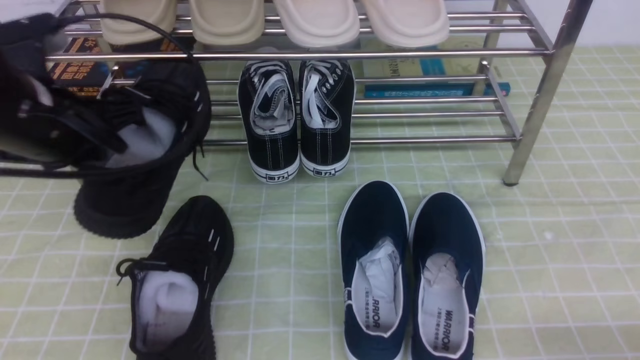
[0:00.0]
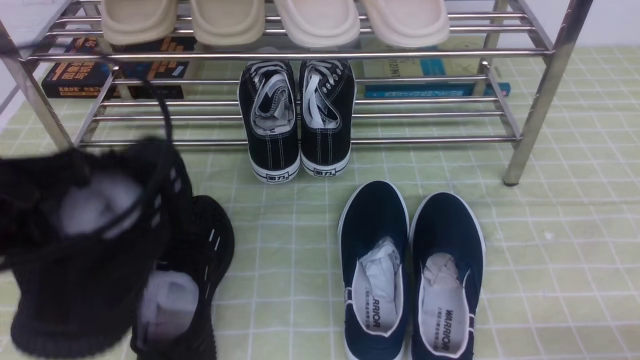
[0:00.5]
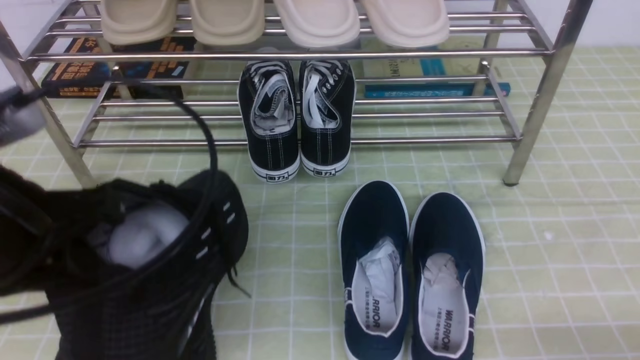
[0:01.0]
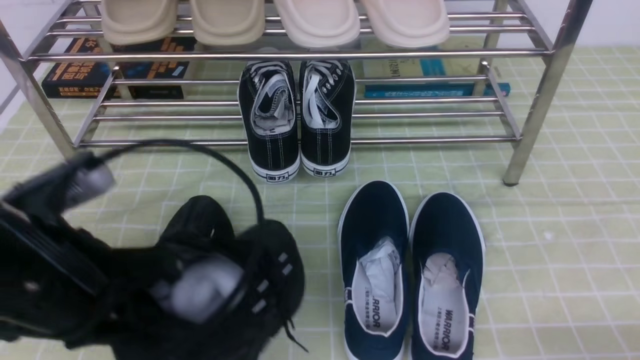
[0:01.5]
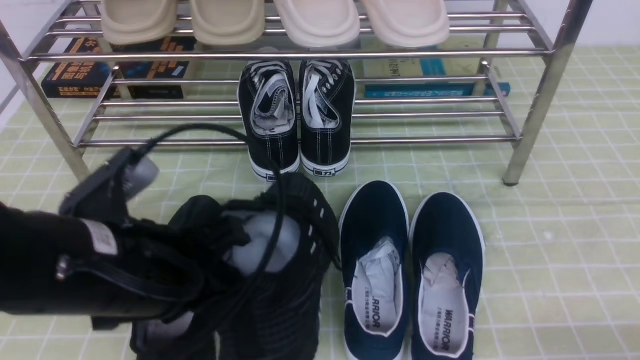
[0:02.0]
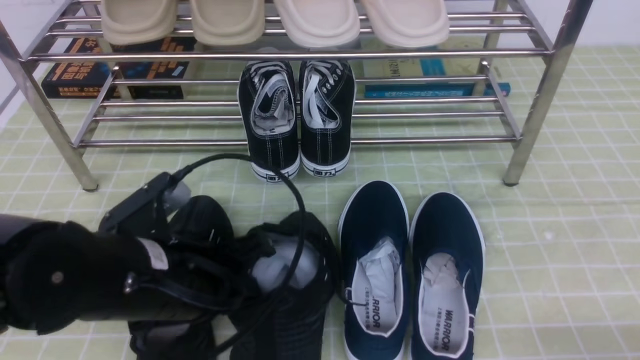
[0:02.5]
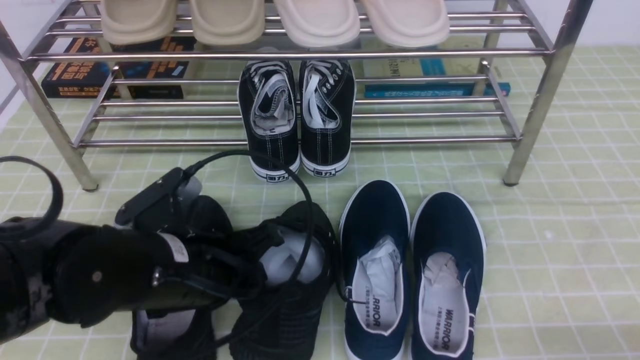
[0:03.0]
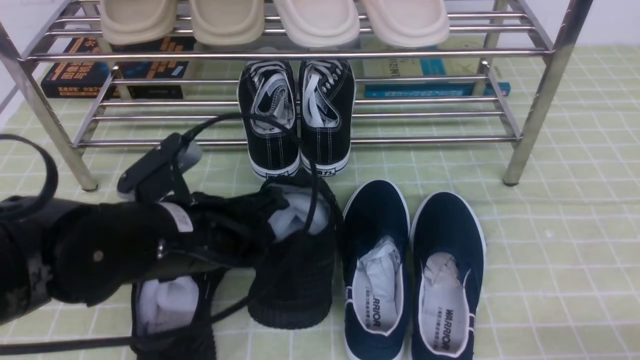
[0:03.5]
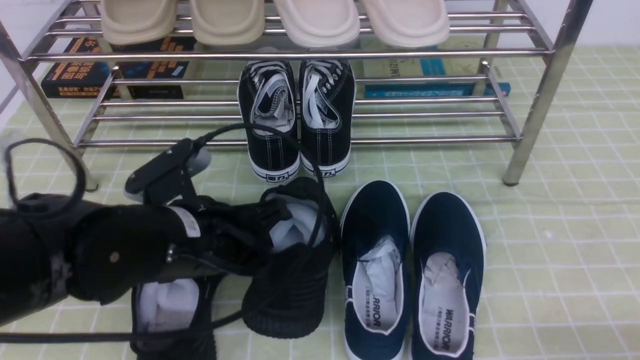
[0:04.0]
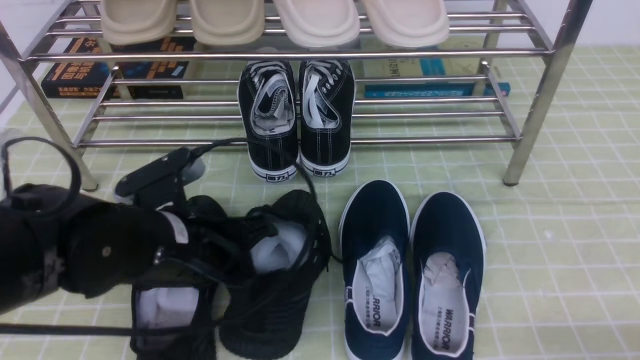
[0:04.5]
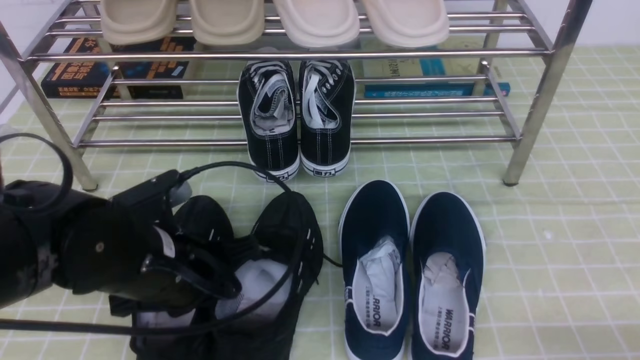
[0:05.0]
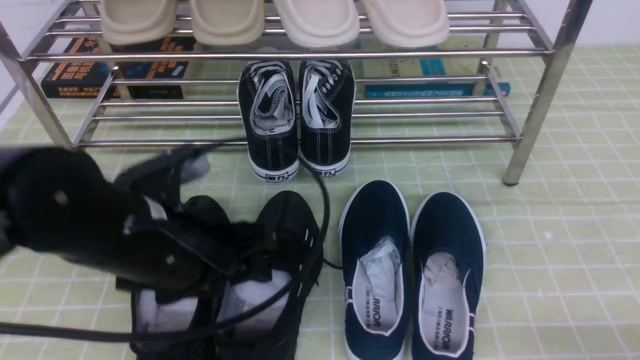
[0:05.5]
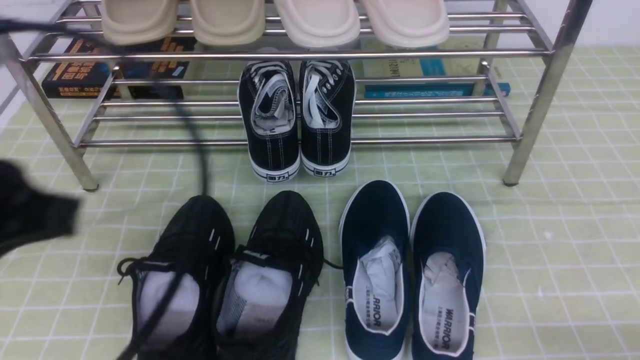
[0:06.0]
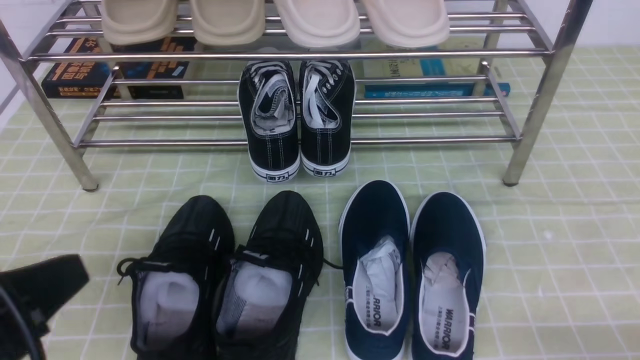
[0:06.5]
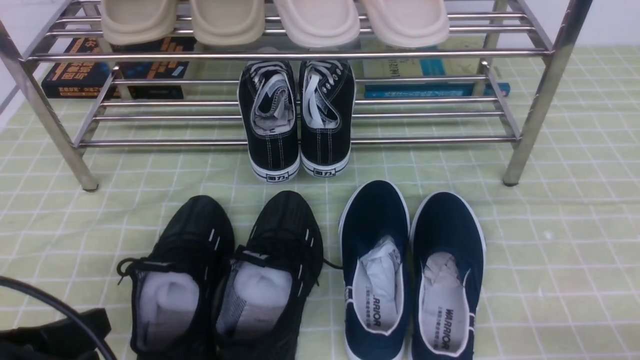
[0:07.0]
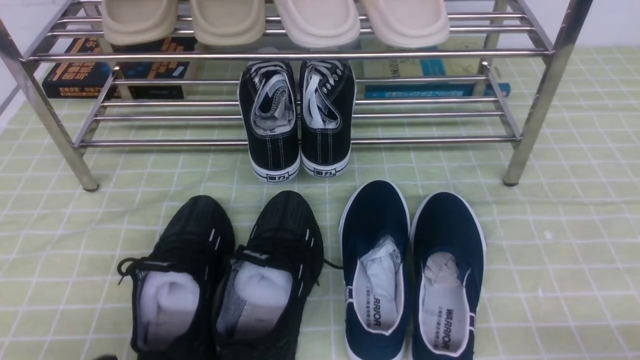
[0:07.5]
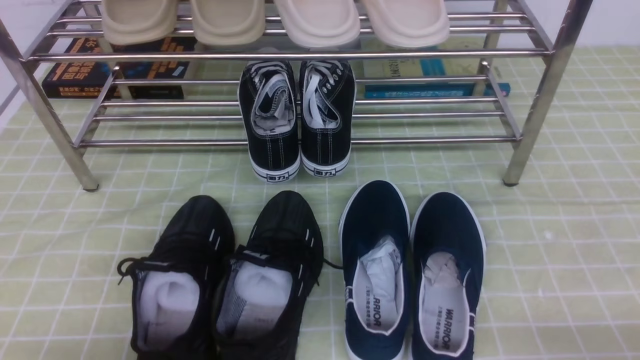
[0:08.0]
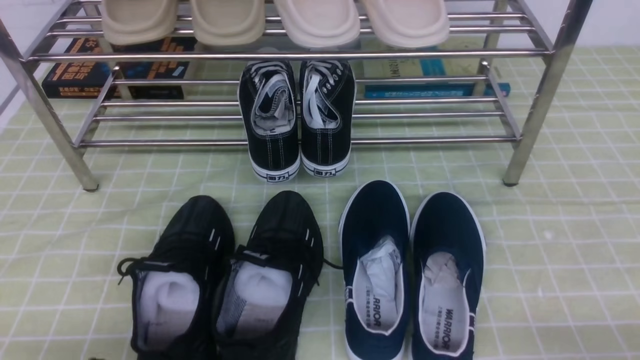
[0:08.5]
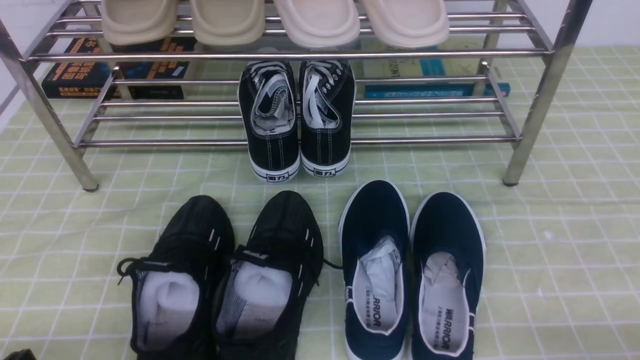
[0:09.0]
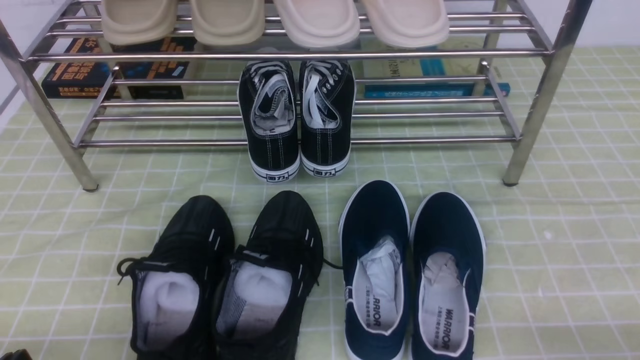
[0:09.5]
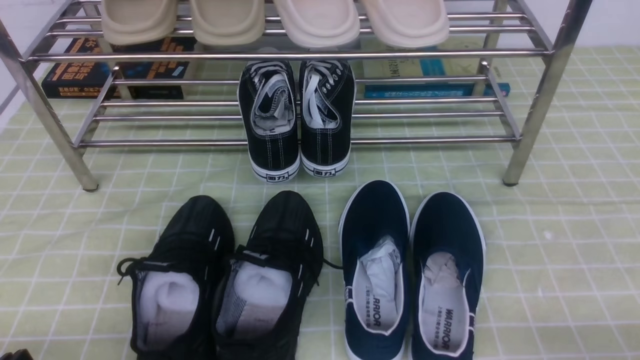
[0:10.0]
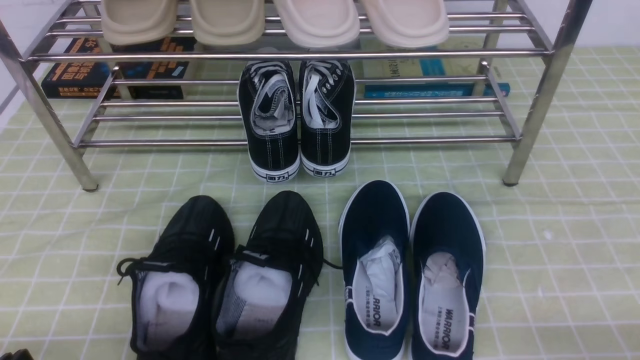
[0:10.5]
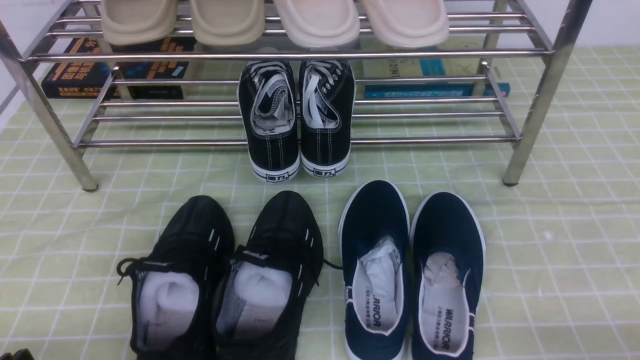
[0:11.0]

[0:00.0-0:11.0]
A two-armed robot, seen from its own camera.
Step, 0:00.0 to 0:05.0: Use your left arm to remove the clamped shoe from the shoe rack and put it down.
0:00.0 to 0:02.0: The left gripper heads backward, to the right and downward, covering some 15 cm.
0:02.0 to 0:03.5: The left gripper shifts by roughly 5 cm.
0:03.5 to 0:05.5: The left gripper opens up.
0:05.5 to 0:07.5: The left gripper moves backward, to the left and downward, some 20 cm, and closes.
0:09.0 to 0:11.0: Both grippers stay put.

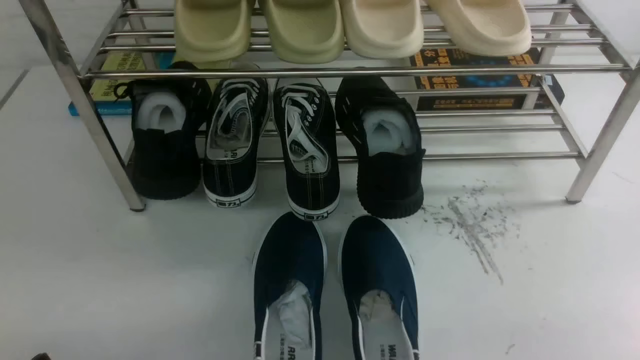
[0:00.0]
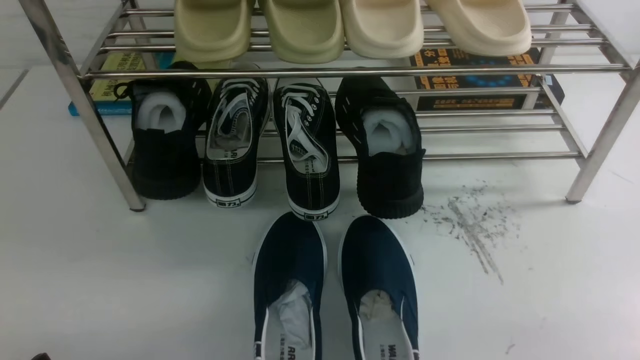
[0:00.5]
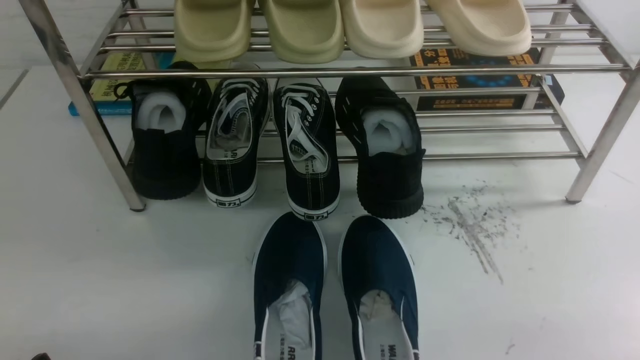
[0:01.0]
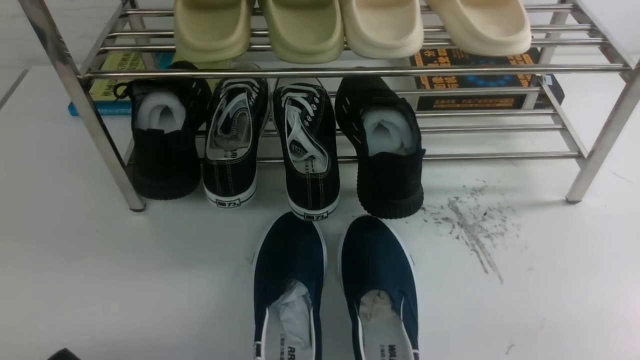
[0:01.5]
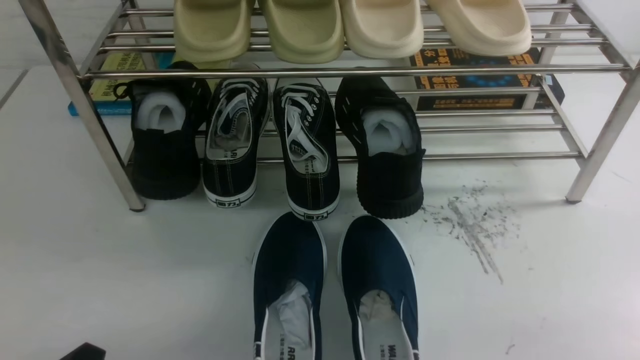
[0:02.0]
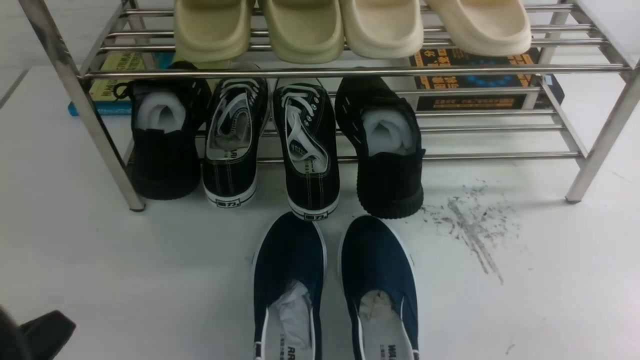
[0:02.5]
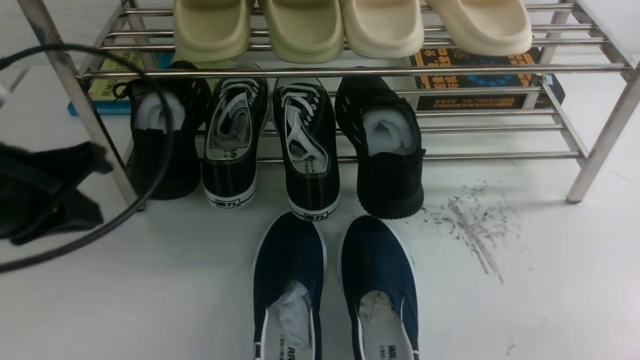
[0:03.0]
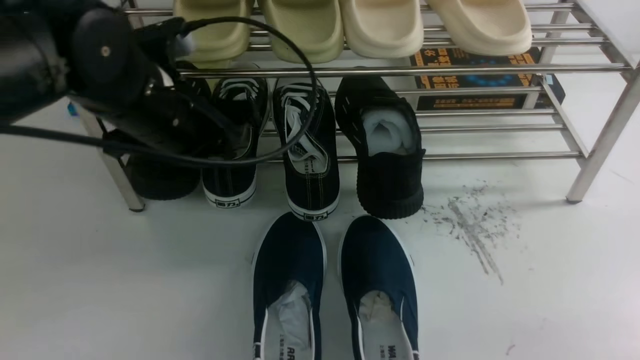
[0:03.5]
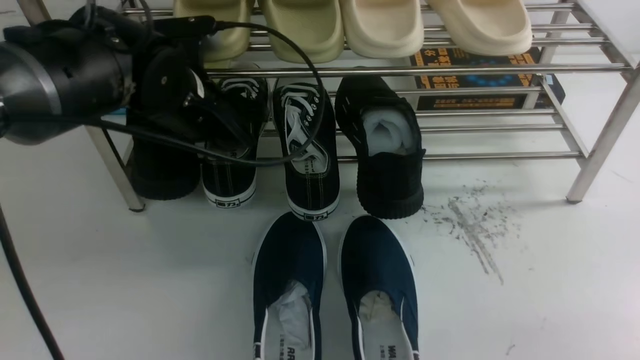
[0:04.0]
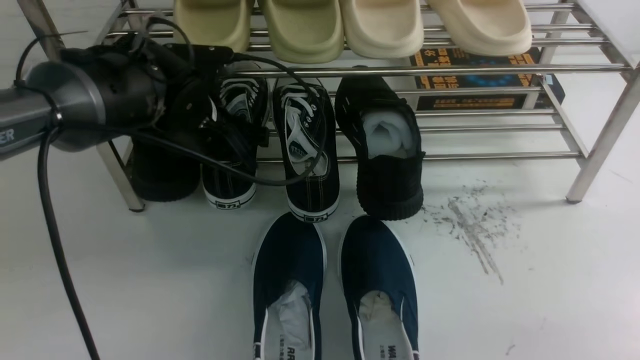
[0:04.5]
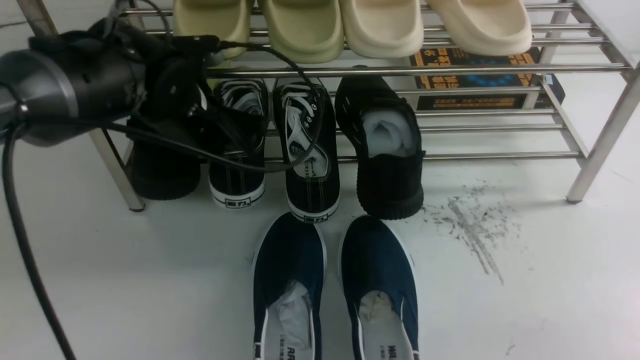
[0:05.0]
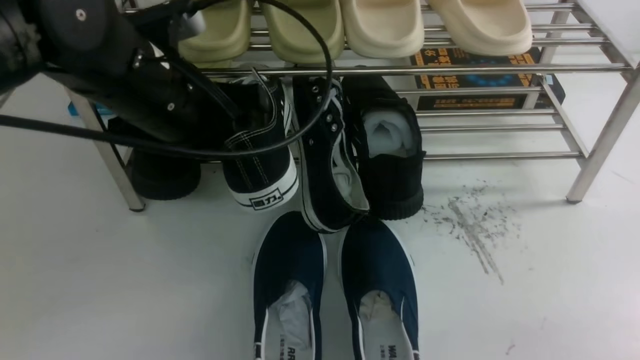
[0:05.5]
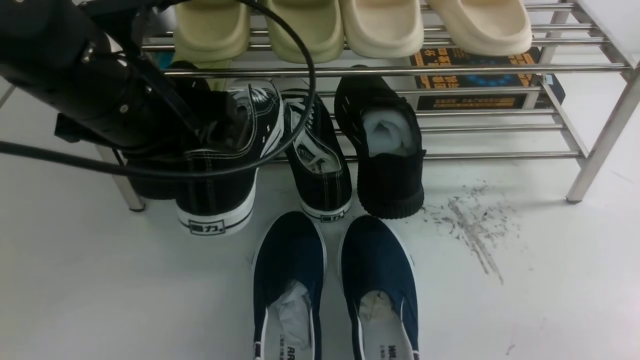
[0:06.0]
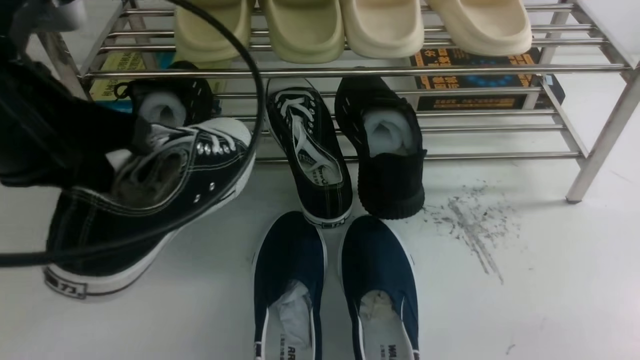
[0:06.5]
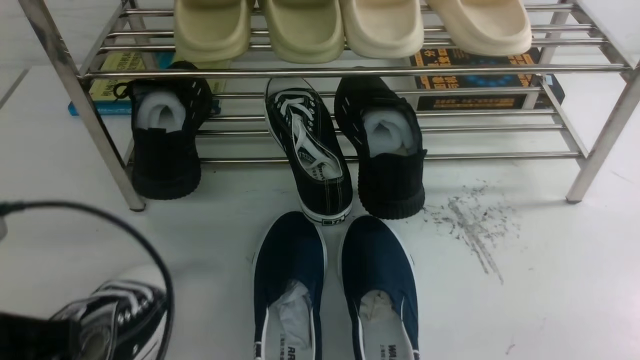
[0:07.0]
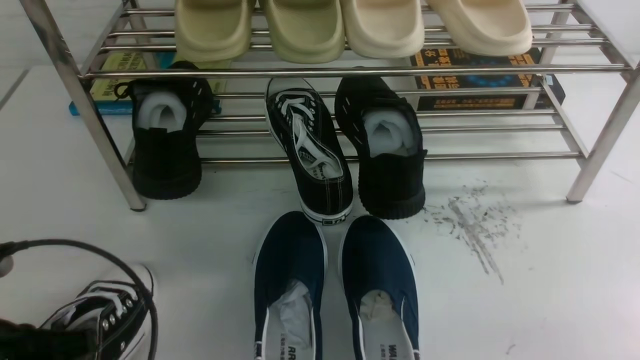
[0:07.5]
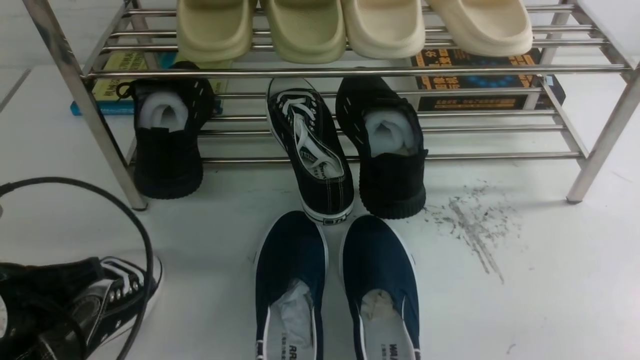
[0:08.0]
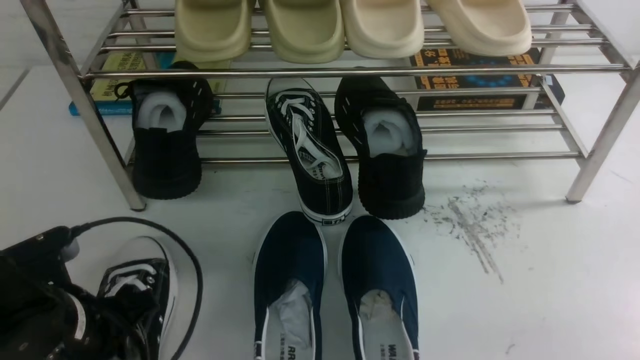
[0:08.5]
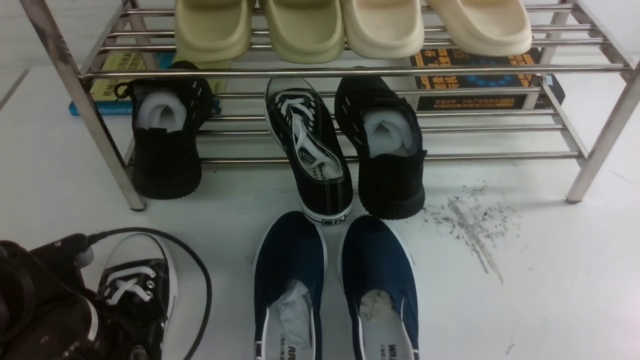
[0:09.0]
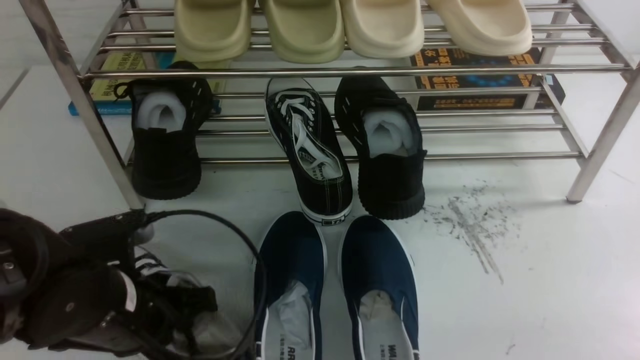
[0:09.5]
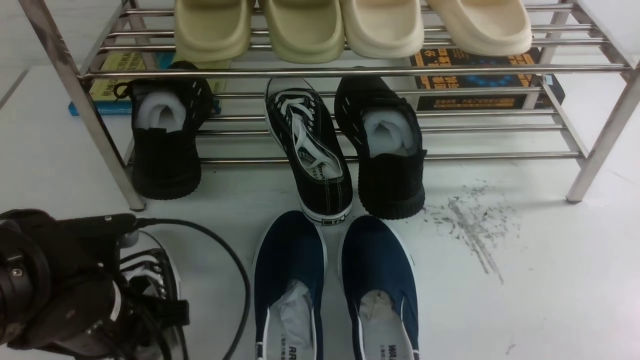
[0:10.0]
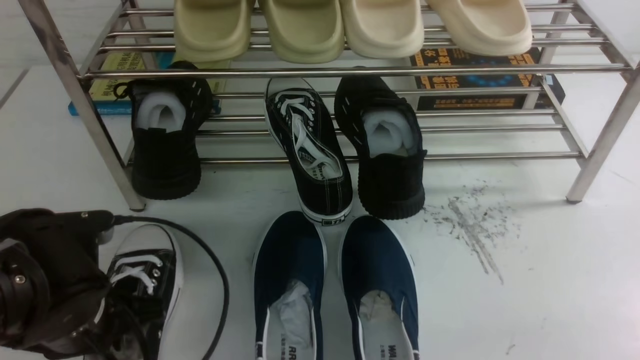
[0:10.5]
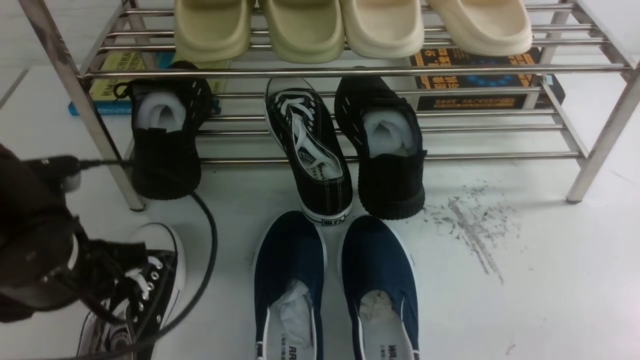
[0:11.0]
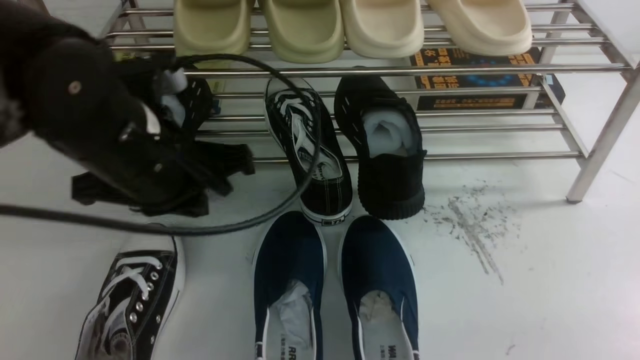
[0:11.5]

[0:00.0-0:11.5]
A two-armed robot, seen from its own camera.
Step, 0:00.0 to 0:05.0: use the left arm to clamp a shoe on the left side of the shoe rack.
Step, 0:05.5 to 0:11.0: Use your left arm to remove the clamped shoe from the shoe rack and put it down.
0:02.0 to 0:04.0: The left gripper travels forward by about 30 cm, and opens its fingers.
0:04.0 to 0:06.0: The left gripper travels backward and upward by about 15 cm, and closes its fingers.
0:06.0 to 0:07.5: The left gripper goes about 20 cm backward, downward and to the left.
0:07.5 to 0:09.5: The left gripper heads forward and to the right, covering some 10 cm.
0:09.5 to 0:11.5: The left gripper is displaced upward and forward by some 15 cm, and opens, then closes once more.
